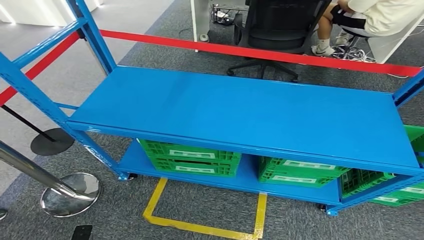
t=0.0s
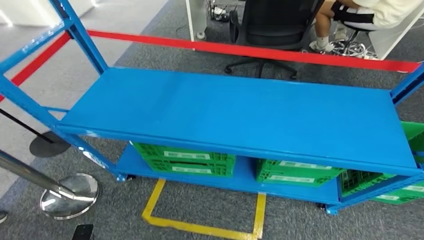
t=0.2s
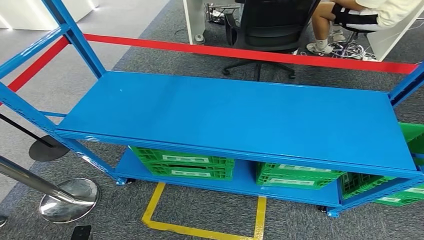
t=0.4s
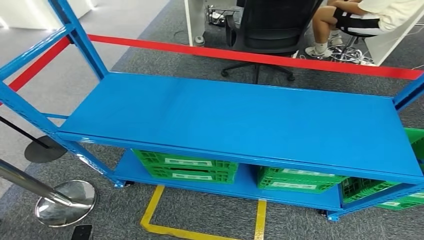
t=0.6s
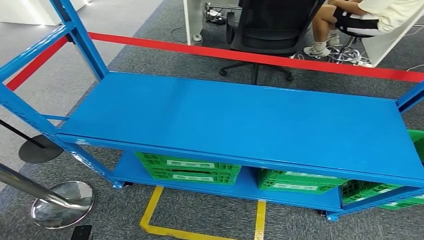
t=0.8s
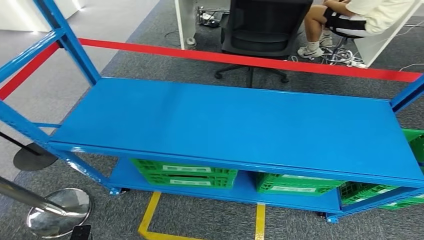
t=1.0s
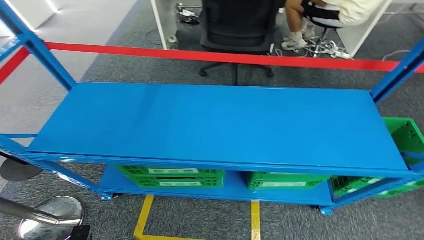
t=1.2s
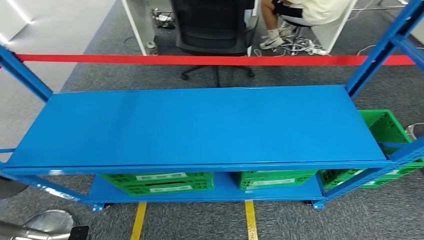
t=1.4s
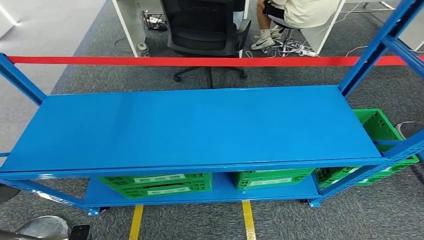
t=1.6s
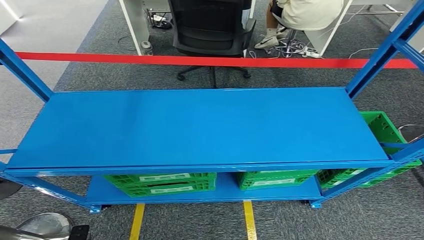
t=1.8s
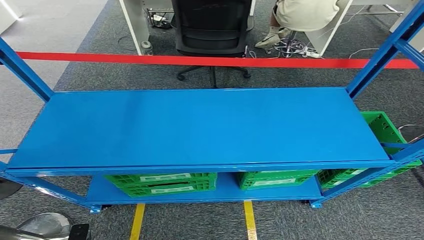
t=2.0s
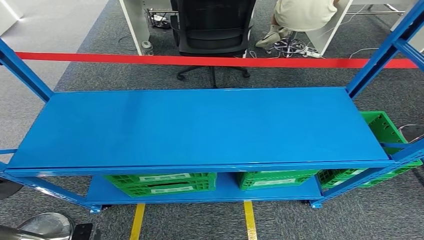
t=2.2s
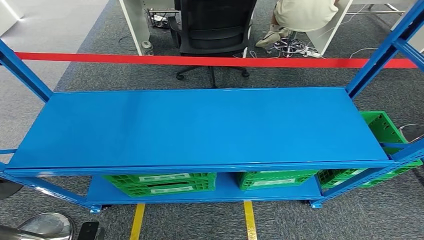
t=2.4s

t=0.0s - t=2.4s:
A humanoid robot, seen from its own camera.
Step, t=0.0s - t=2.4s: Return to the initial position at the workbench.

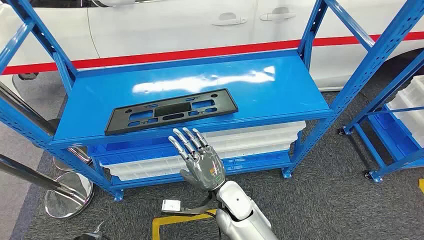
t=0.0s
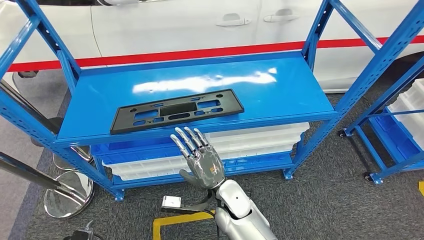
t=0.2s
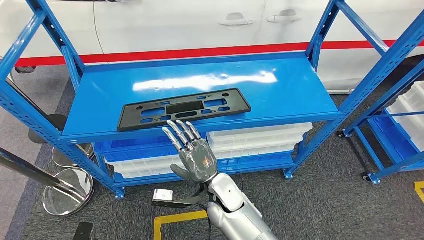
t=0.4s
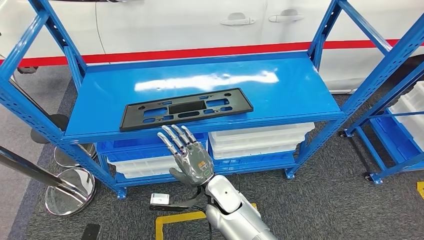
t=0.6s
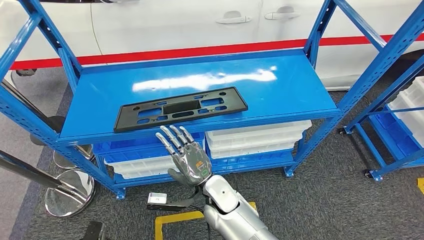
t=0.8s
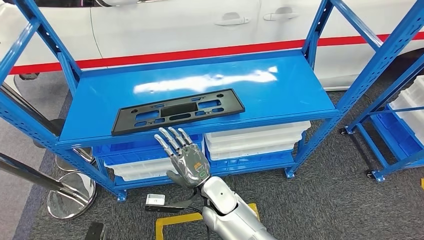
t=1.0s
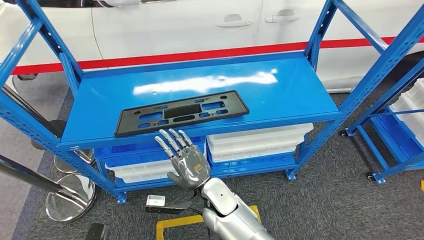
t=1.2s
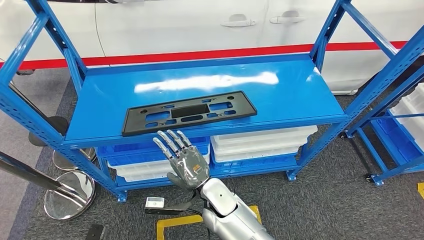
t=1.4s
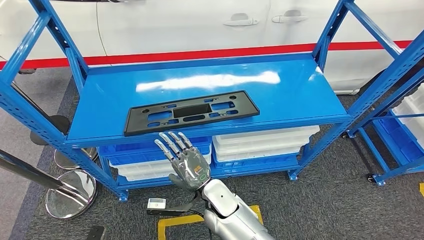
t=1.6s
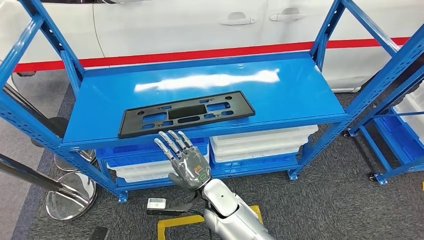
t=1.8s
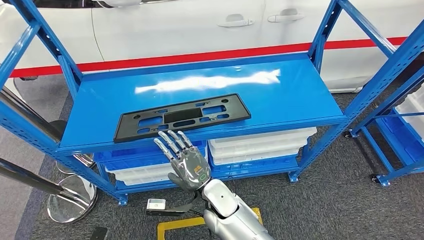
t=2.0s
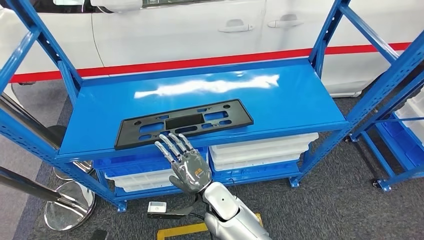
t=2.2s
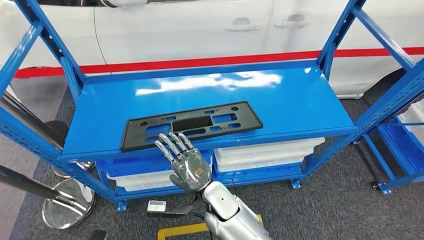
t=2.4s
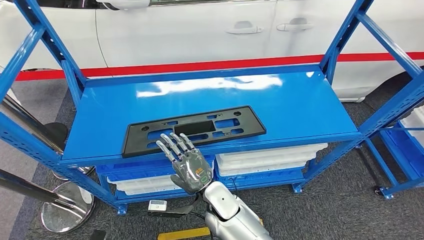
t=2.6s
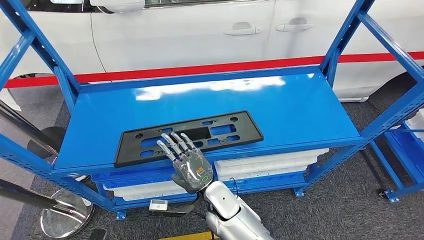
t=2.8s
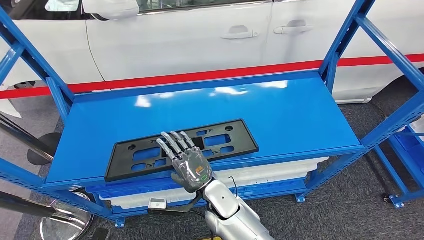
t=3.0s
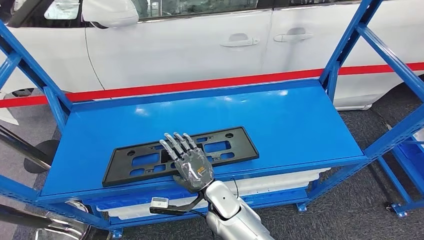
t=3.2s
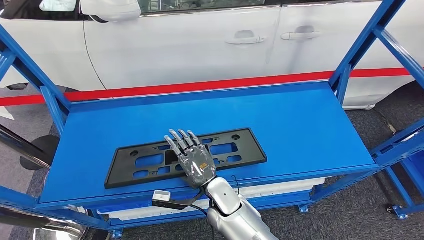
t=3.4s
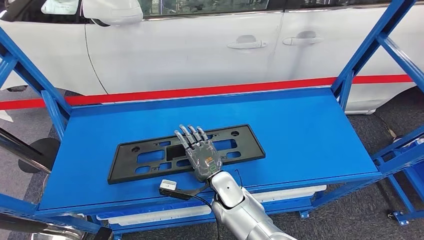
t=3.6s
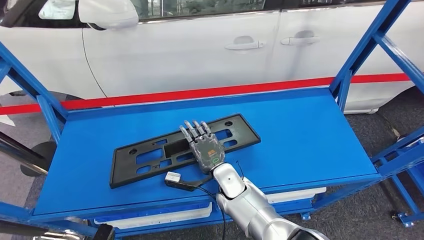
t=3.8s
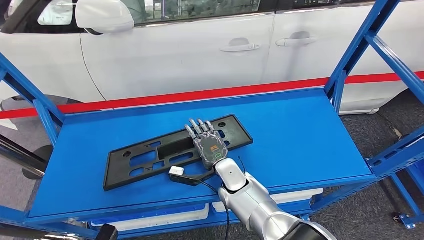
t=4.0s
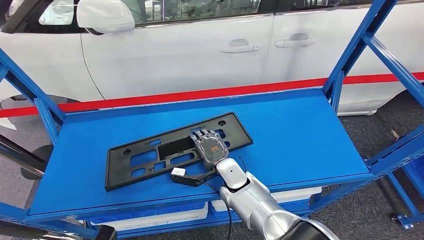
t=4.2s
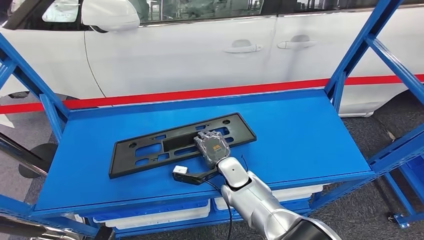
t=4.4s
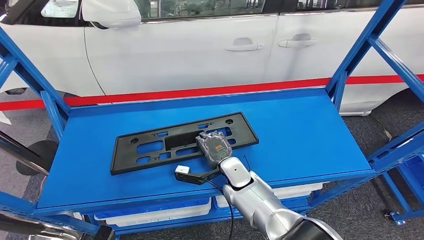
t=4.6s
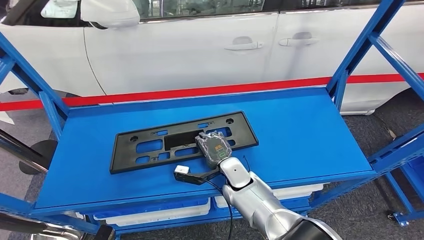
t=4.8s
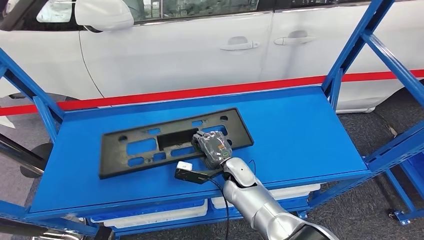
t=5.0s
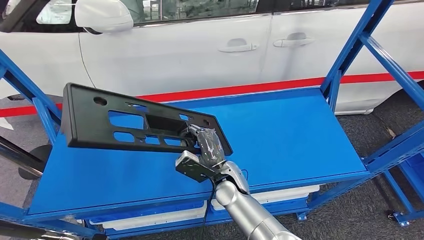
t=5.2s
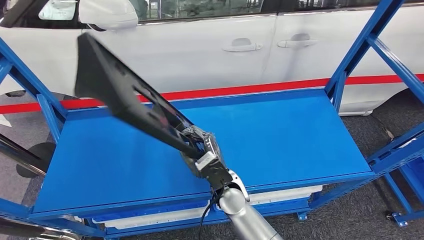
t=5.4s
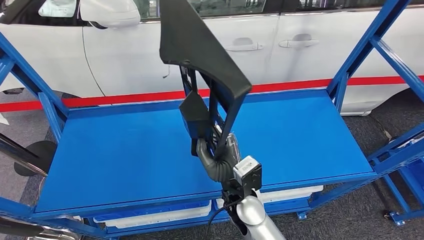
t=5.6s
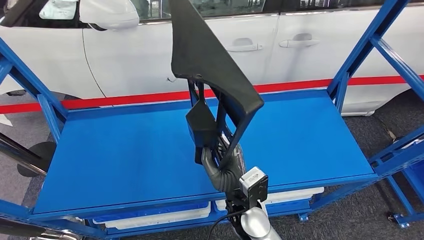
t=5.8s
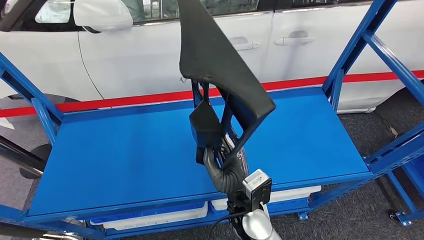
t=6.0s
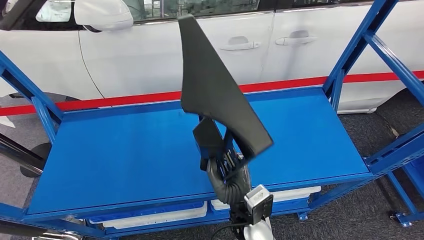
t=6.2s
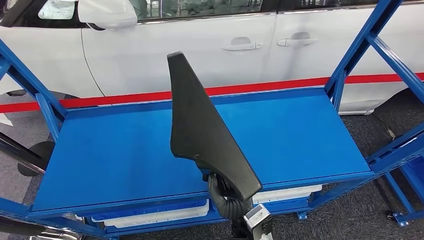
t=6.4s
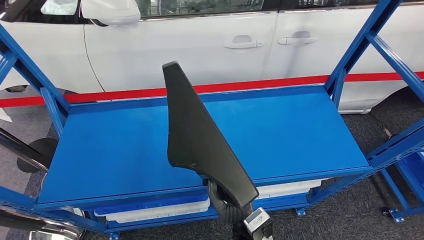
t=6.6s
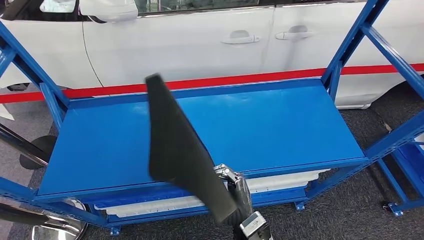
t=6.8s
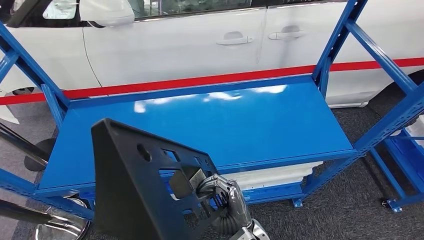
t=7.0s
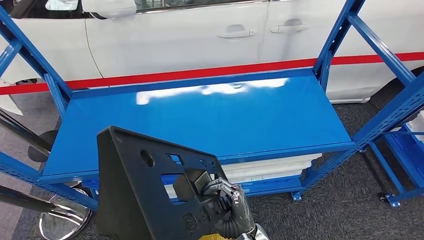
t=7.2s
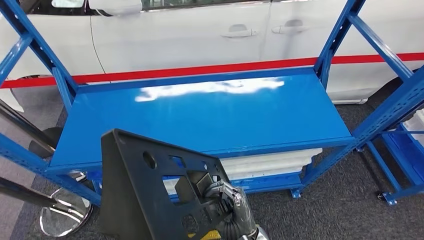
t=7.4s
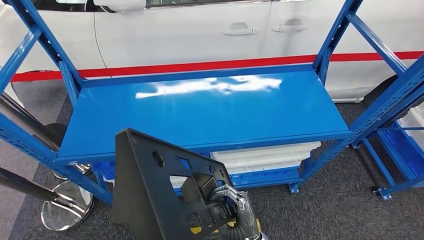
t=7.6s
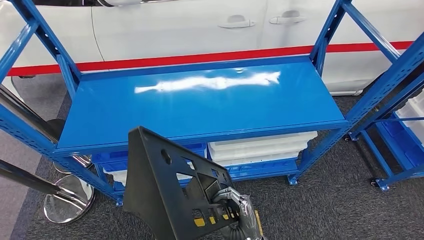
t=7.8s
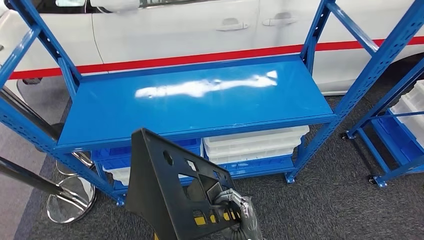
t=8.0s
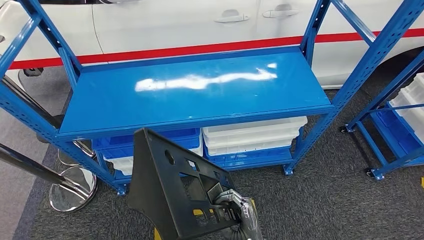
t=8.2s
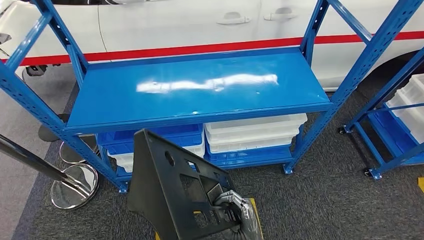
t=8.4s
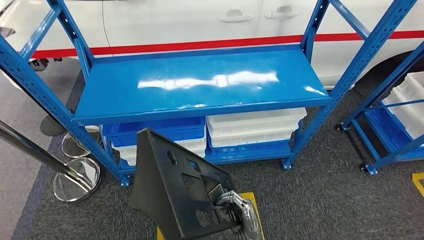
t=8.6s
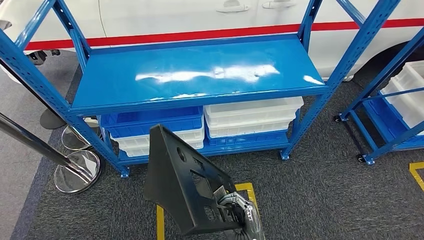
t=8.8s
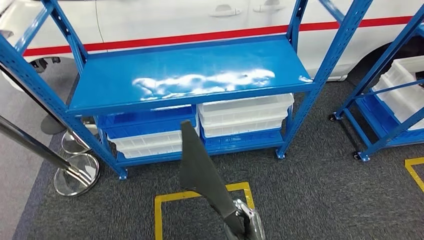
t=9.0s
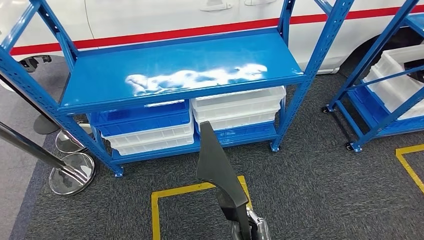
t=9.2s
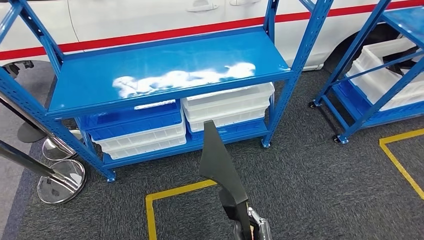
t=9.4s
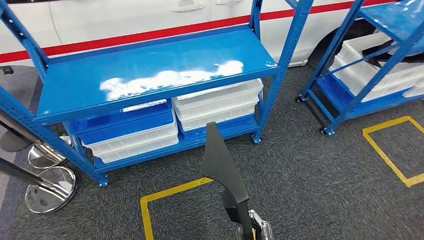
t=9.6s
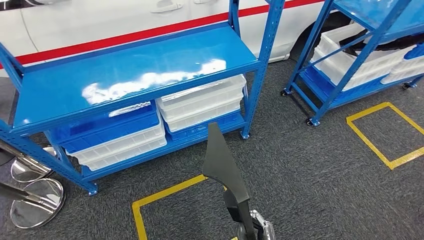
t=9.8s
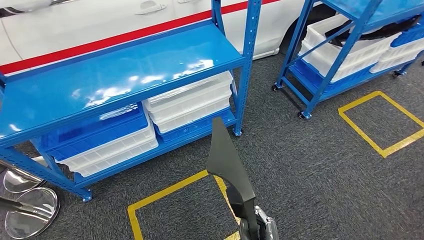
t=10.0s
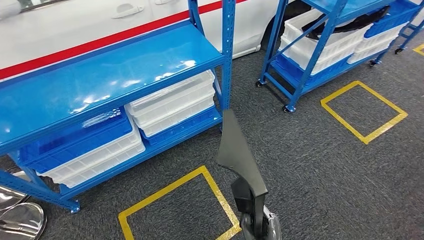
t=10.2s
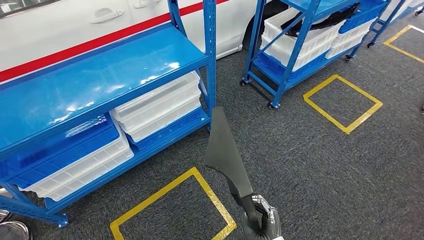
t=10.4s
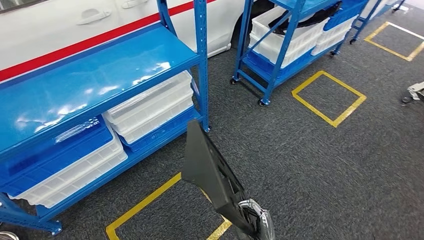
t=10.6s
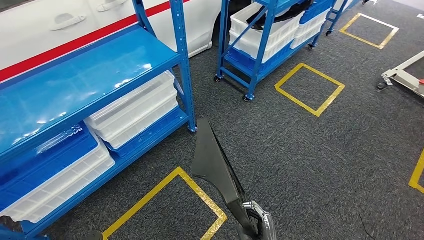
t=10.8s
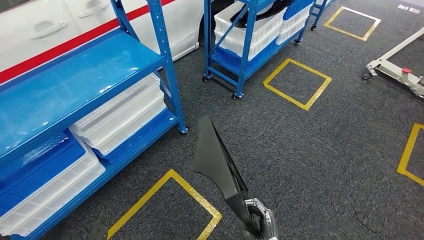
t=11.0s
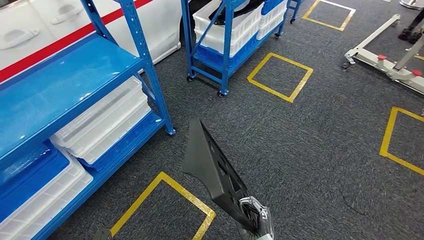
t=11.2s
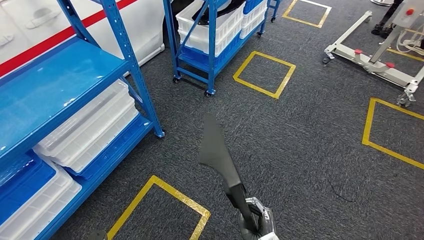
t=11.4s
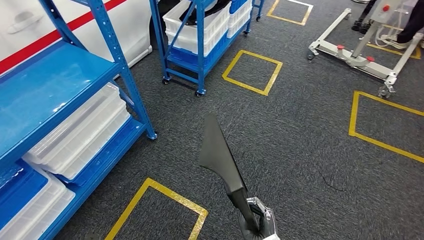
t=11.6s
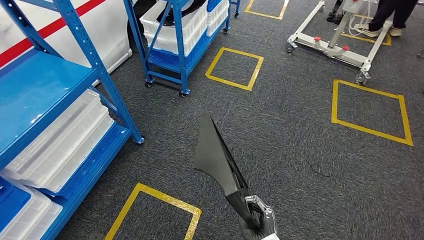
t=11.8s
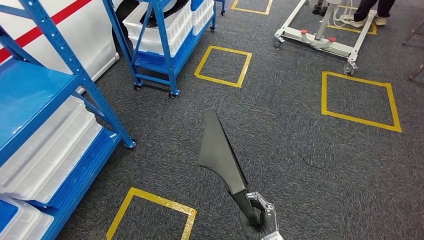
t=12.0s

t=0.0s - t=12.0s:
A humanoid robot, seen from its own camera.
Step, t=0.0s - t=10.6s: Pick up the large parts from the shelf.

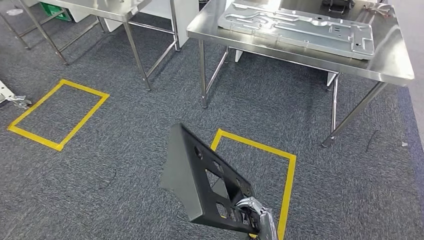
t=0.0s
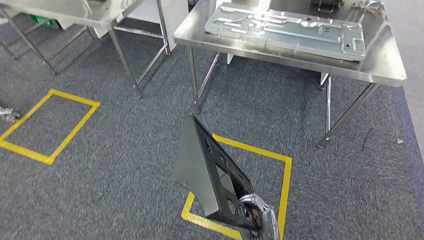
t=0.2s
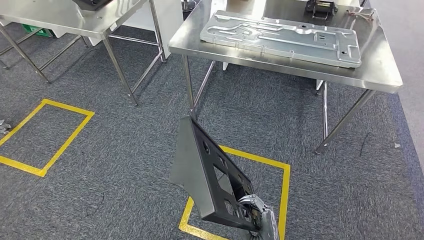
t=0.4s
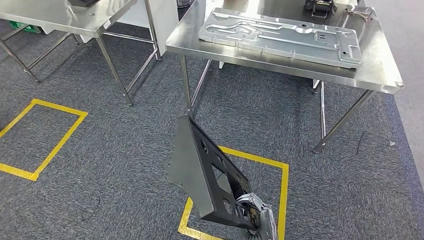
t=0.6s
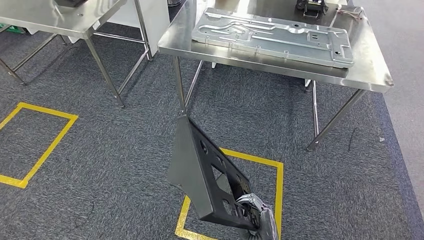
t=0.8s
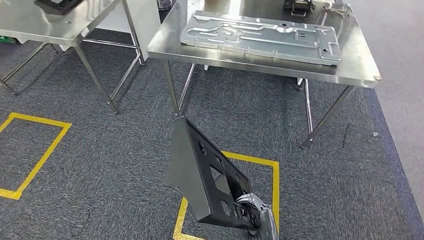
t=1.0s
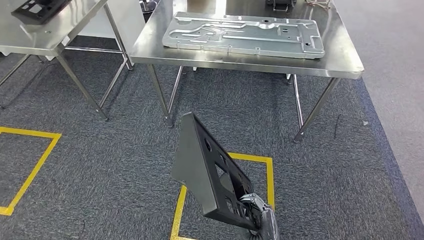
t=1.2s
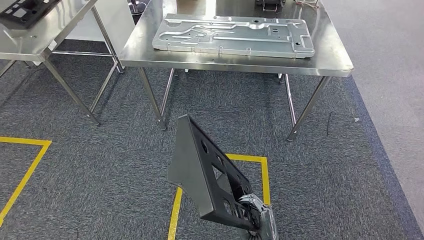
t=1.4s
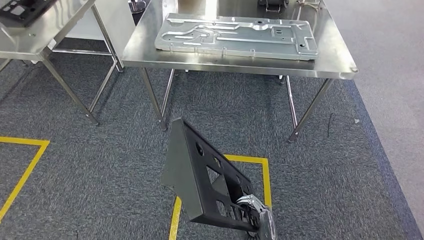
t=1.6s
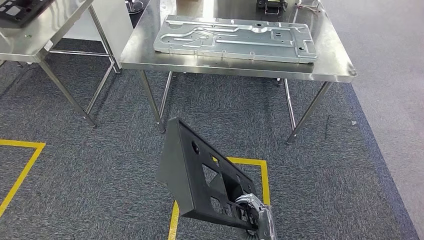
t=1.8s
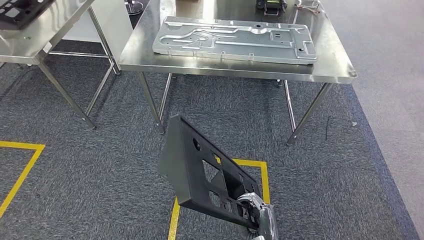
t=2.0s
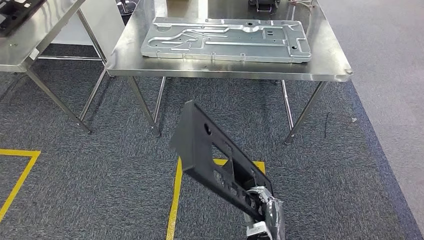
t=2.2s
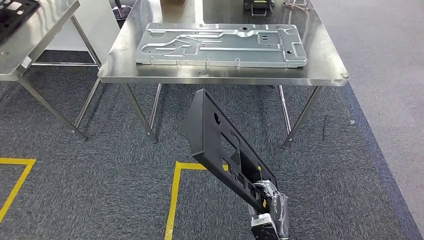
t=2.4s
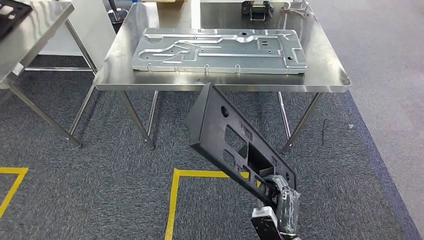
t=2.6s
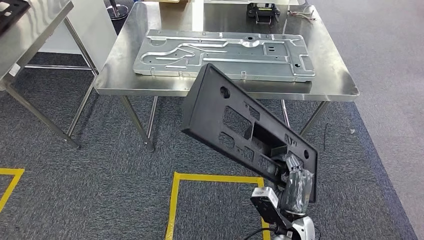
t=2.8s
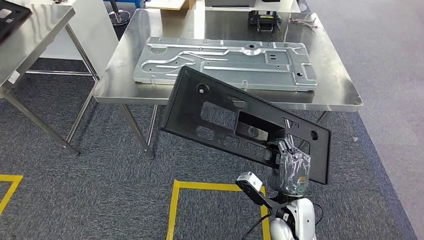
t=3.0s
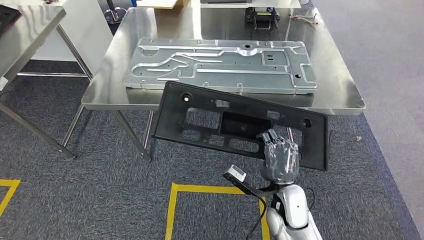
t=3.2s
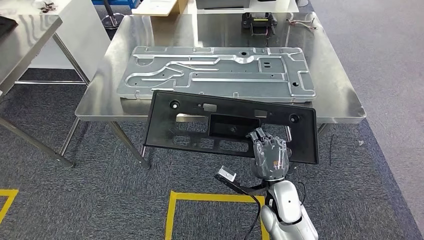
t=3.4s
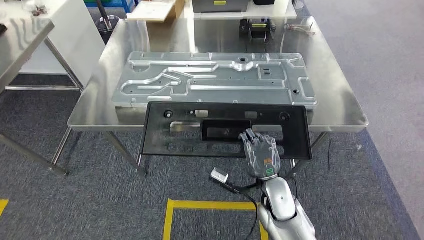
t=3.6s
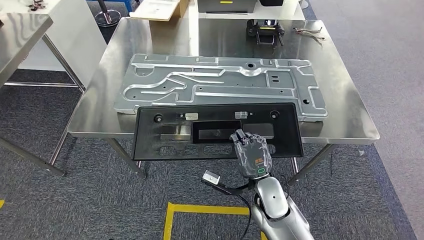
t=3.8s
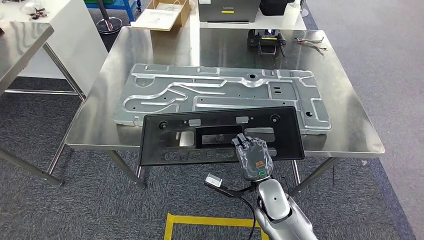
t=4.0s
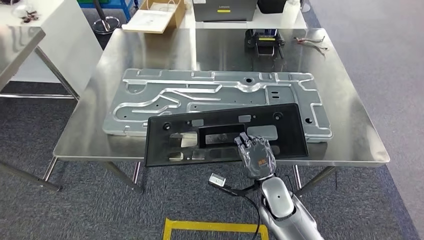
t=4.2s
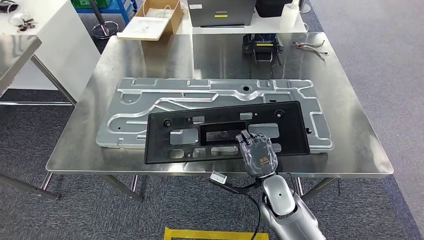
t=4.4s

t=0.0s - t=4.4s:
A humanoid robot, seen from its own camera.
Step, t=0.0s - t=3.6s: Move the large parts to the workbench.
